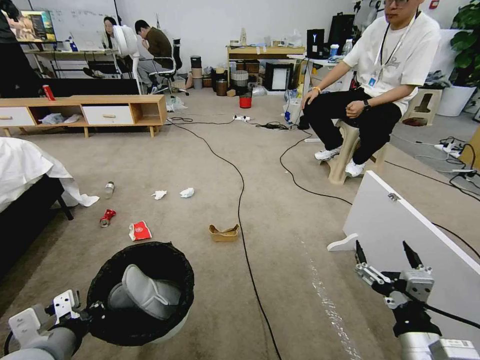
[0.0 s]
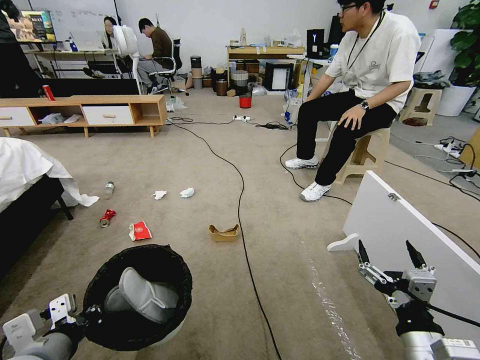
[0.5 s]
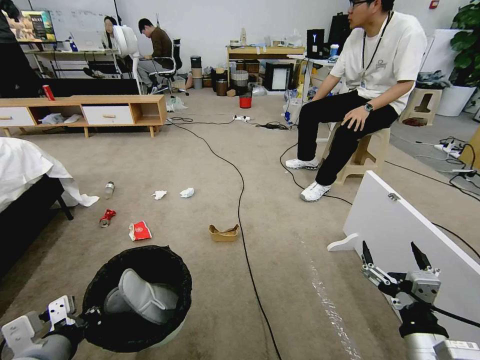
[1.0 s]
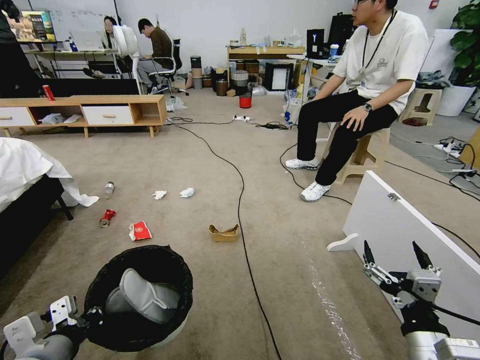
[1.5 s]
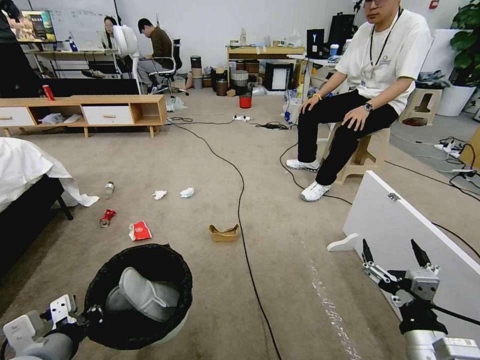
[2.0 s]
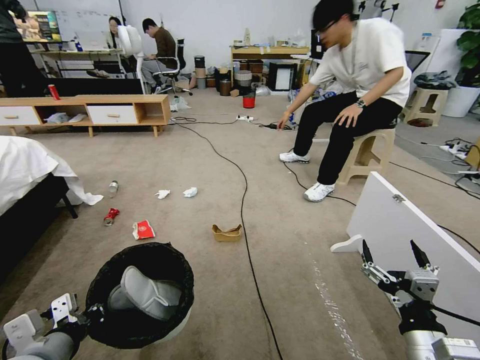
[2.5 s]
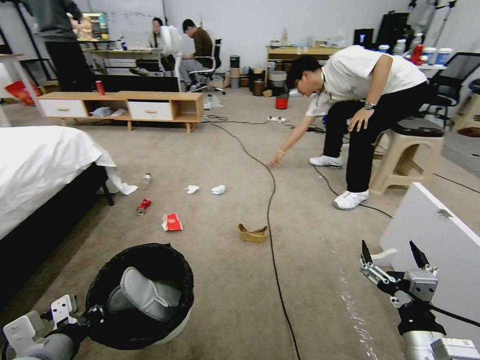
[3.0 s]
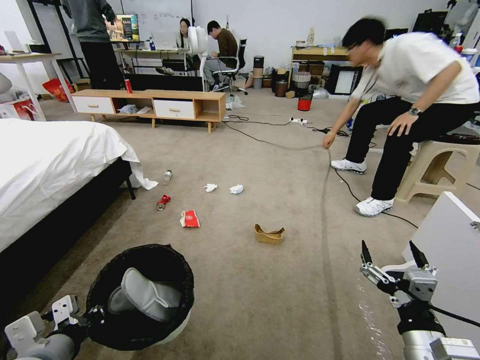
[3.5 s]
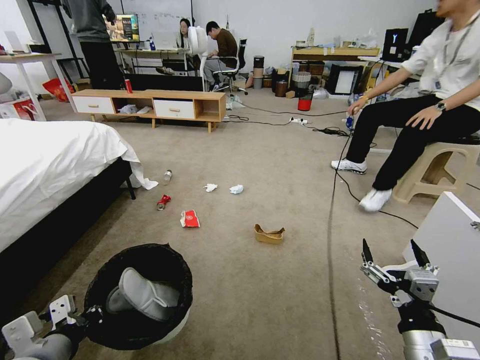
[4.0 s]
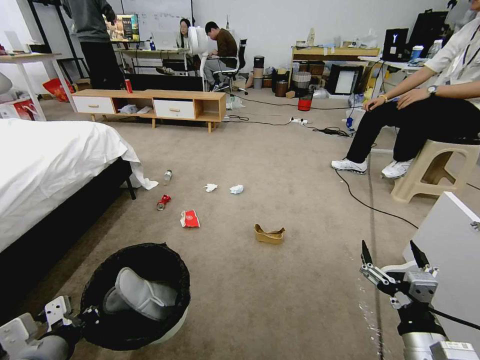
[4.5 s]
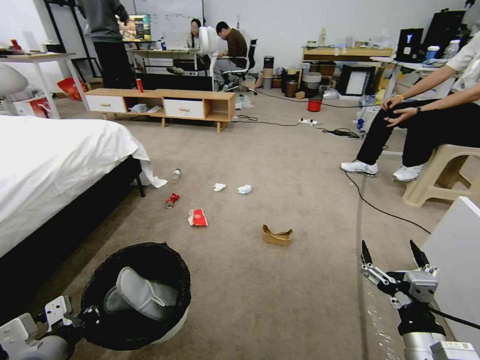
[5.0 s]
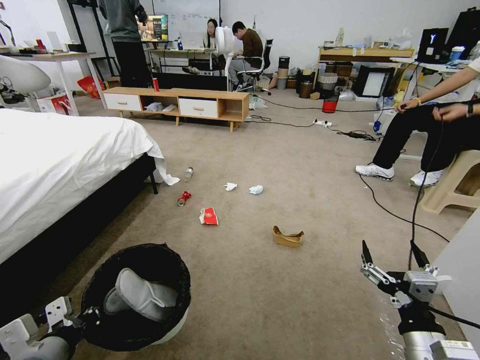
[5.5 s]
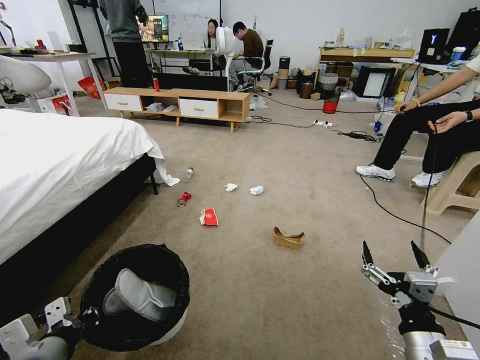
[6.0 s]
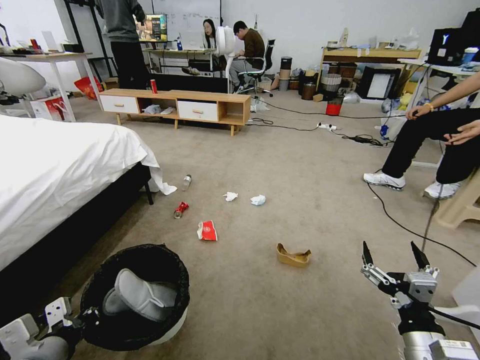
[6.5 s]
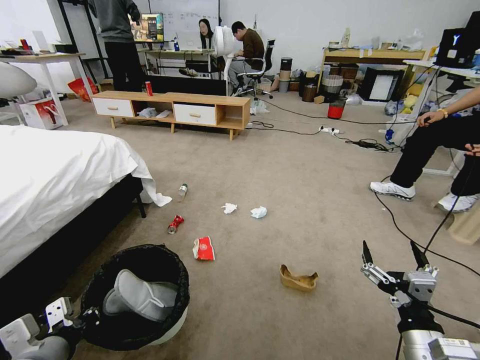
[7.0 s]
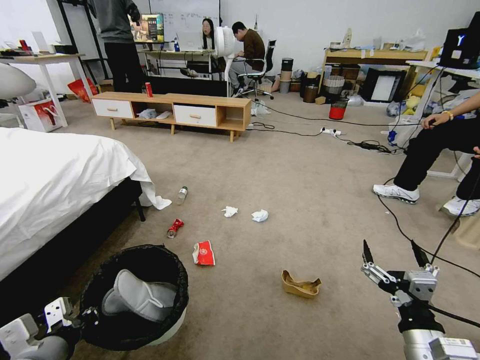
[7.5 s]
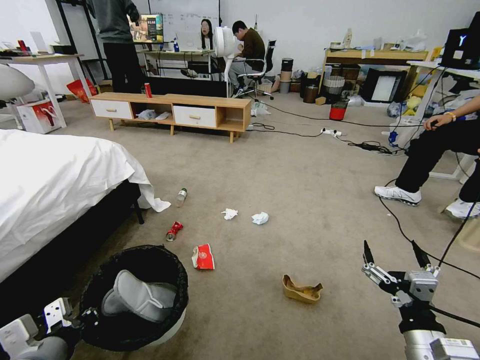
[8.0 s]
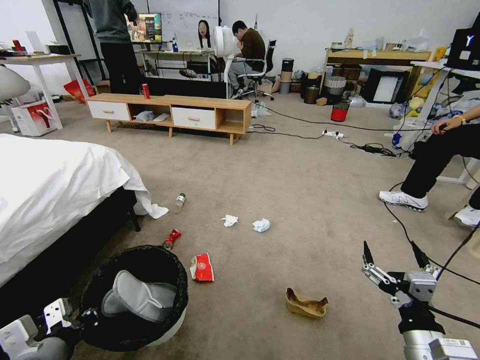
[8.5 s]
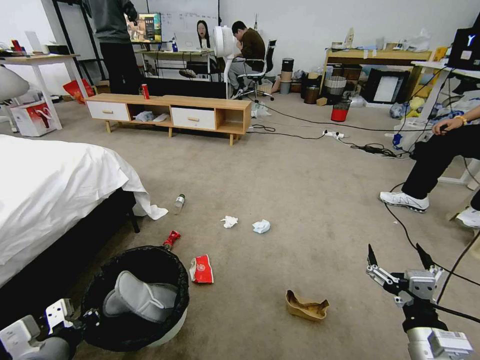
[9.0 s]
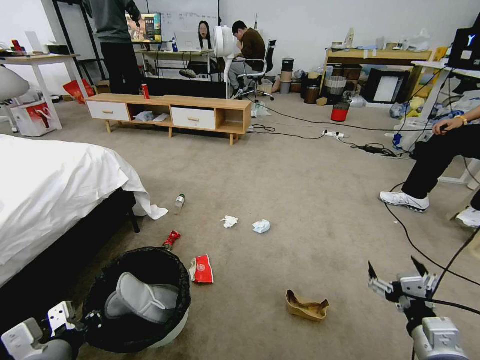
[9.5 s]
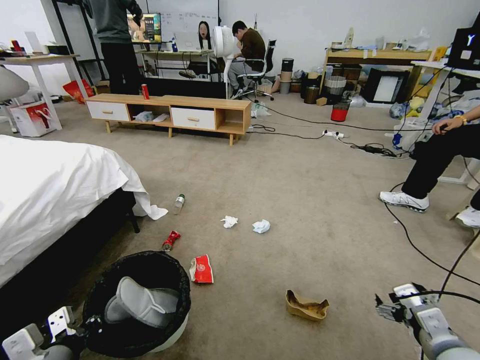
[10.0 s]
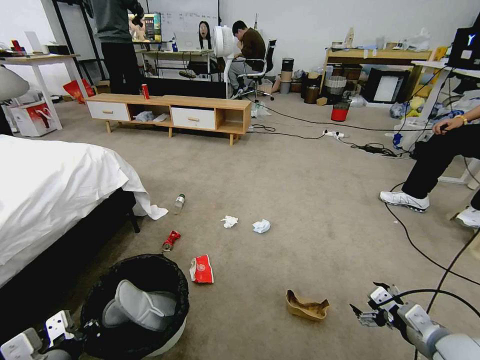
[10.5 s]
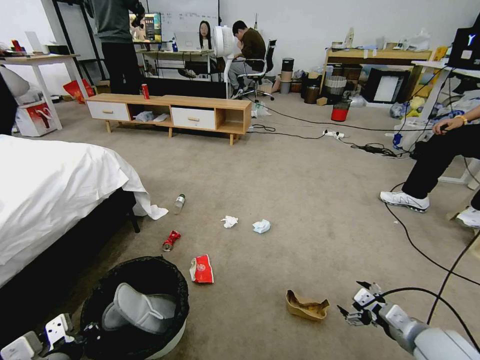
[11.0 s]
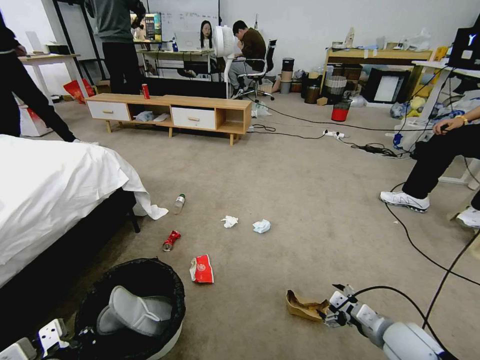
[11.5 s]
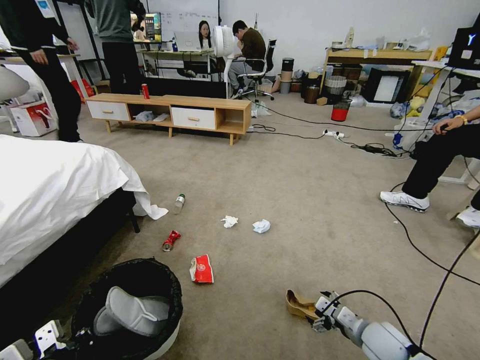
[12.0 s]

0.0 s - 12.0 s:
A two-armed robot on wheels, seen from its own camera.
Task of the whole recording: Pick up the trash bin, then pick up the garbage from the floor and place it into the trash bin.
8.0 s - 10.0 s: The right gripper heads to the right, covering about 5 cm.
10.0 s - 12.0 s: The right gripper heads downward and forward, covering some 20 cm.

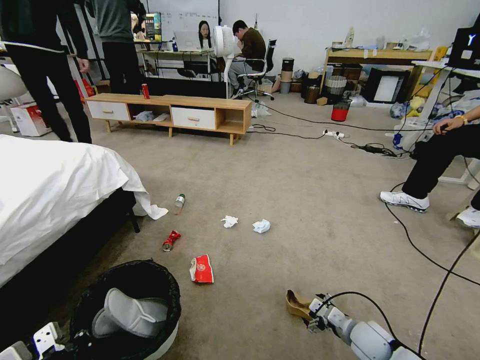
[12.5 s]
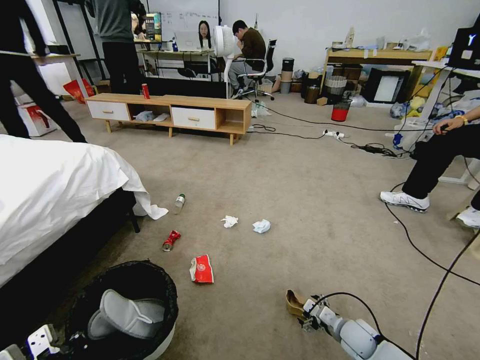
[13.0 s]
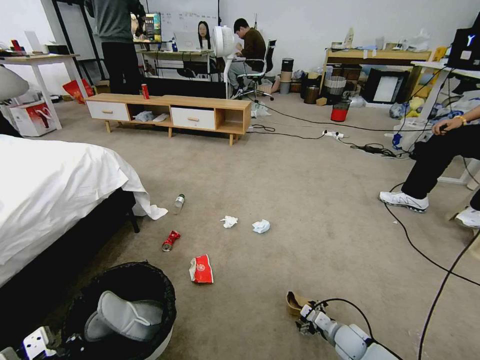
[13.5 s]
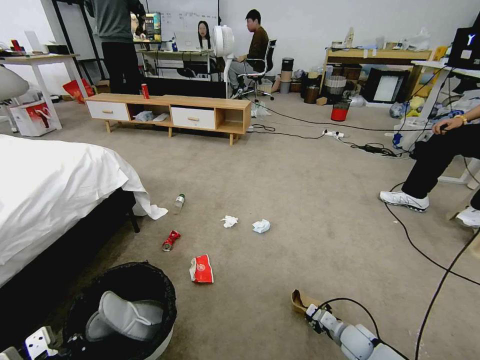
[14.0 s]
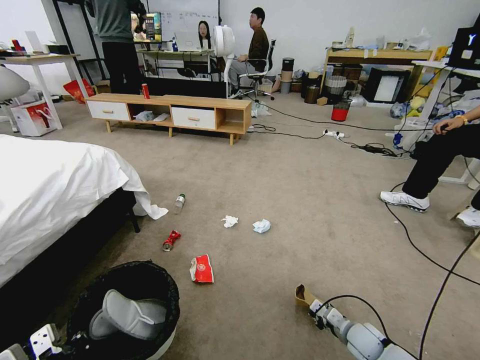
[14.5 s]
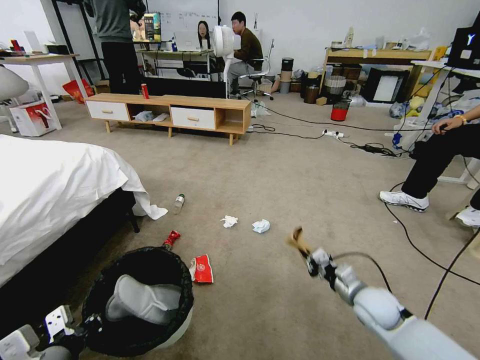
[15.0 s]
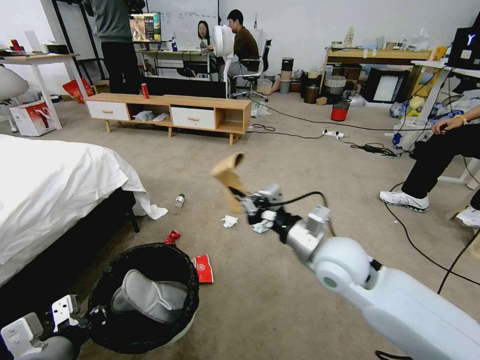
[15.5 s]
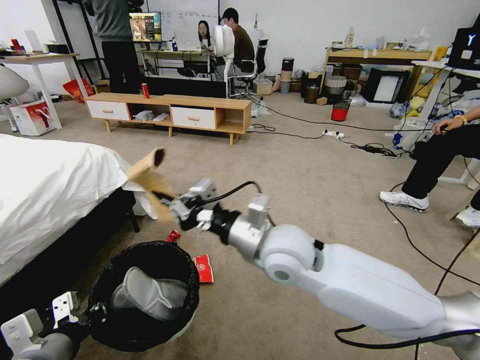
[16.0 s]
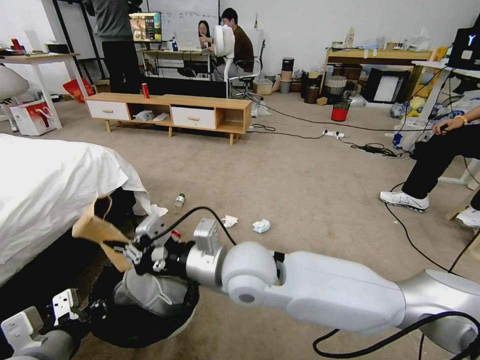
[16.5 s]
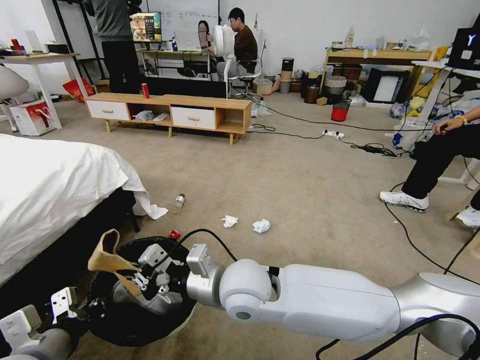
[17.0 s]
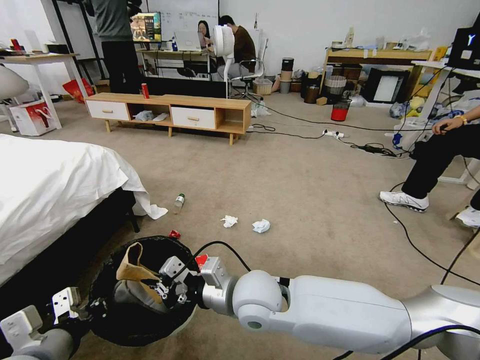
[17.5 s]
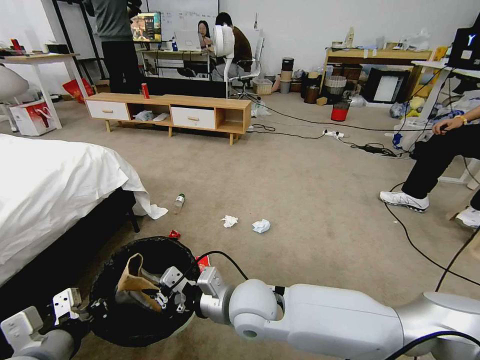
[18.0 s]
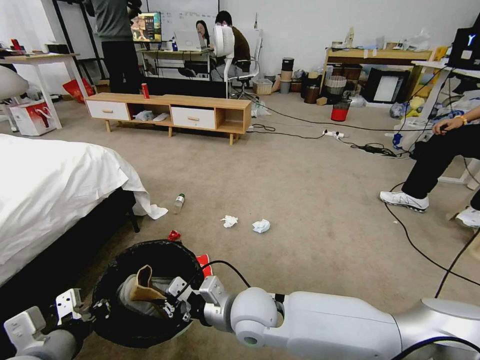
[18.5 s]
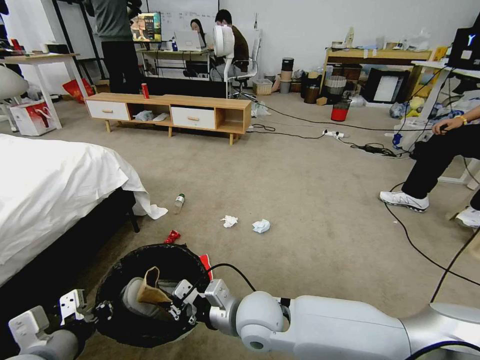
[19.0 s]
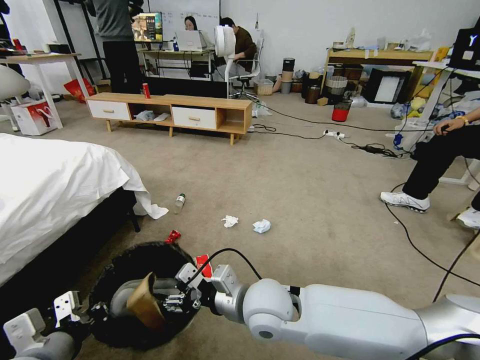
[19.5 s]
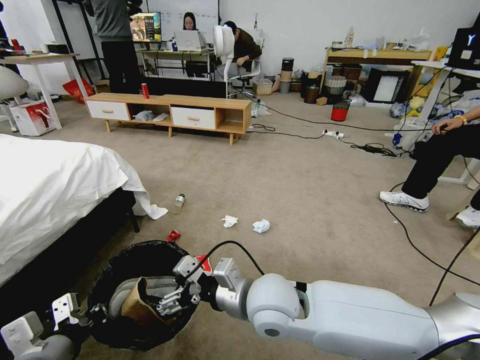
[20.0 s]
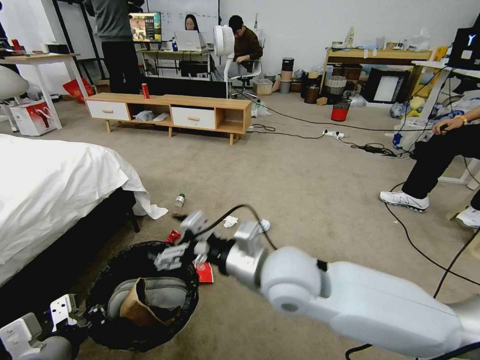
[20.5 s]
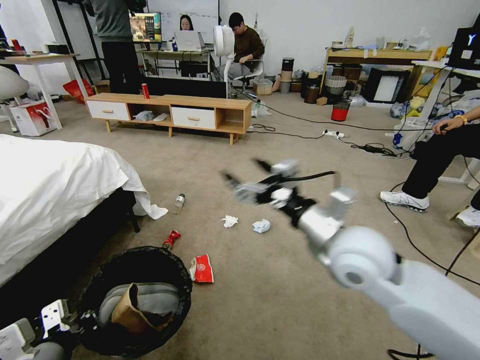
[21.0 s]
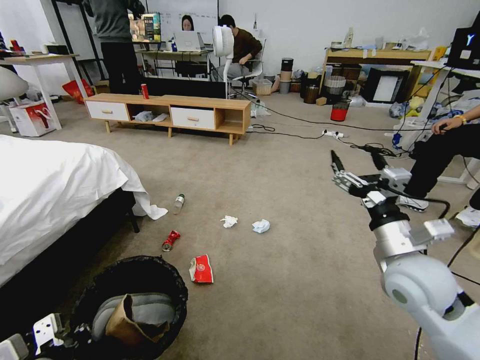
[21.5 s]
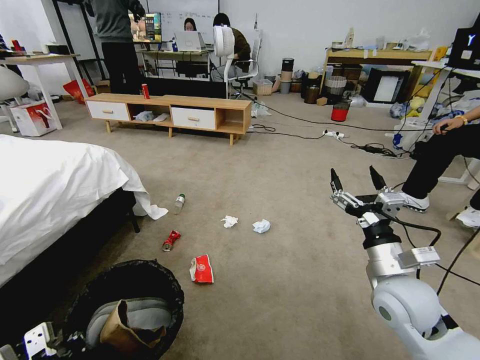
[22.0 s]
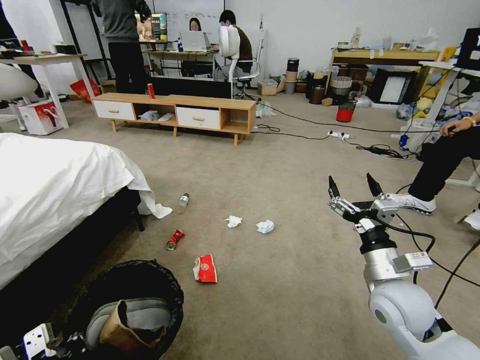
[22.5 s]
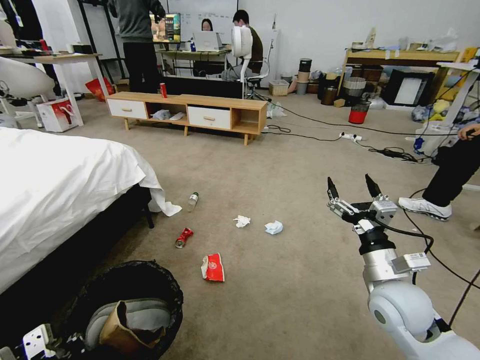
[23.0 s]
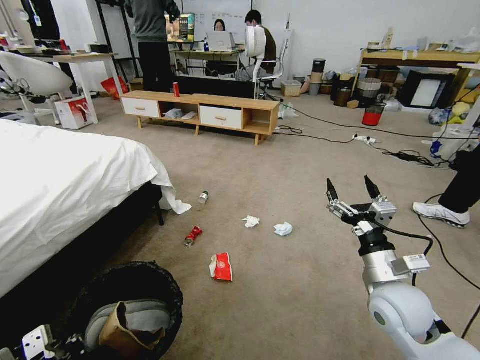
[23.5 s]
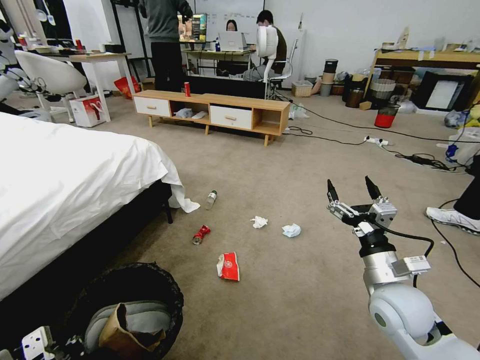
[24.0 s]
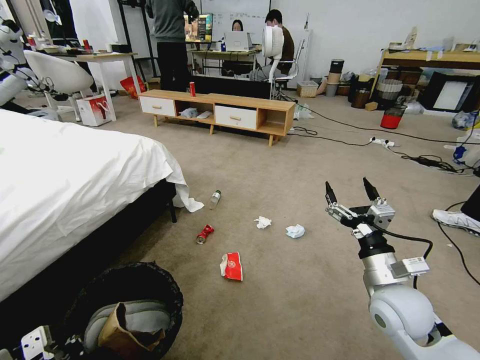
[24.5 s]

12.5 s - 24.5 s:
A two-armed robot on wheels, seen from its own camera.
Task of the whole recording: Pick up the trash bin, then pick up the garbage from the floor and place it into the trash bin.
12.5 s - 14.5 s: The right gripper closes up.
14.5 s - 16.5 s: The right gripper shifts about 50 cm upward and to the left. Meanwhile the left gripper moves approximately 5 cm.
16.5 s - 18.5 s: The right gripper moves downward, some 15 cm.
18.5 s - 20.5 s: The left gripper closes its fingers. The right gripper heads upward, covering about 10 cm, and opens.
20.5 s - 22.5 s: The right gripper goes about 25 cm to the right.

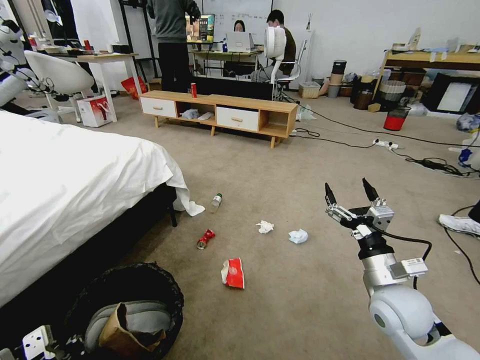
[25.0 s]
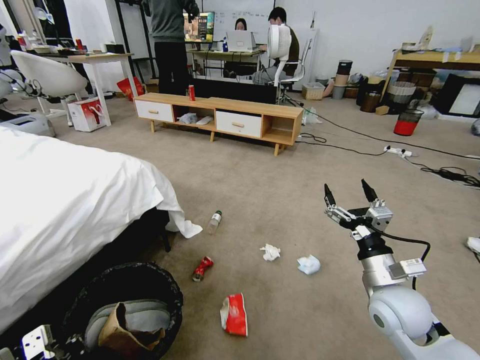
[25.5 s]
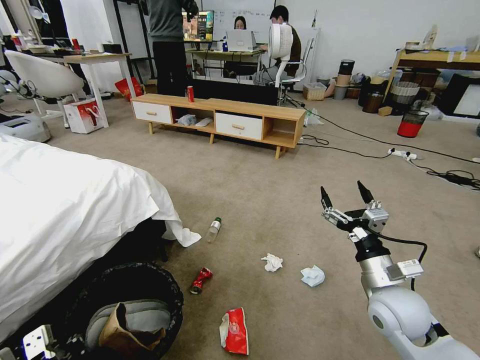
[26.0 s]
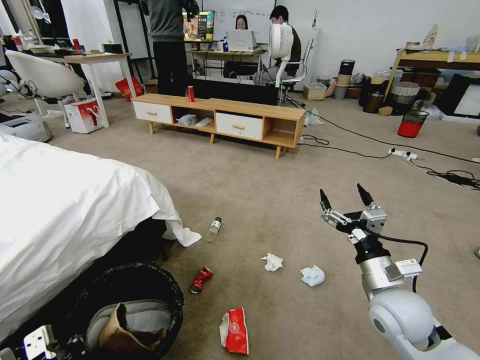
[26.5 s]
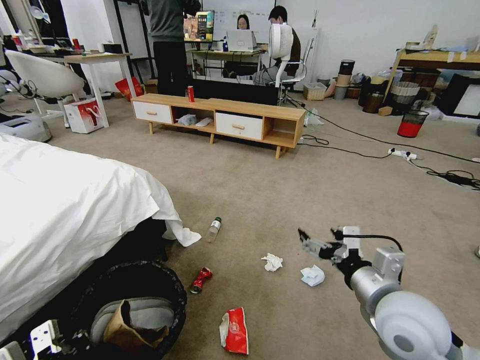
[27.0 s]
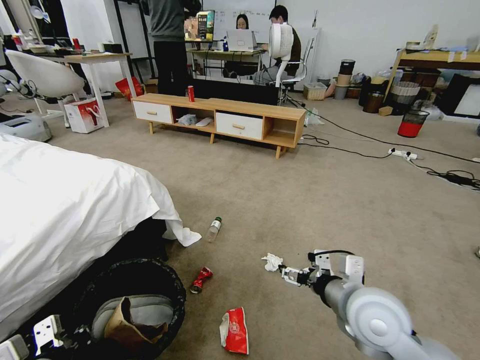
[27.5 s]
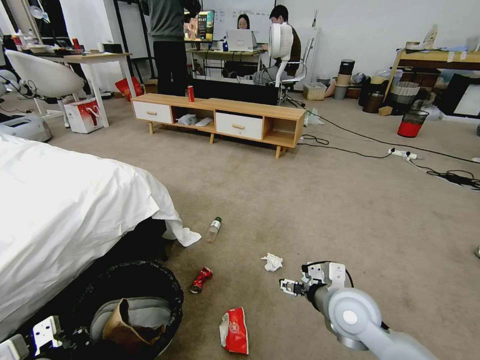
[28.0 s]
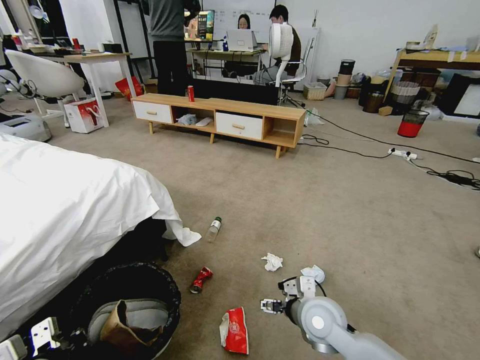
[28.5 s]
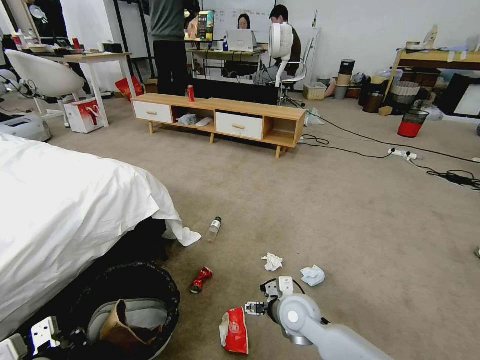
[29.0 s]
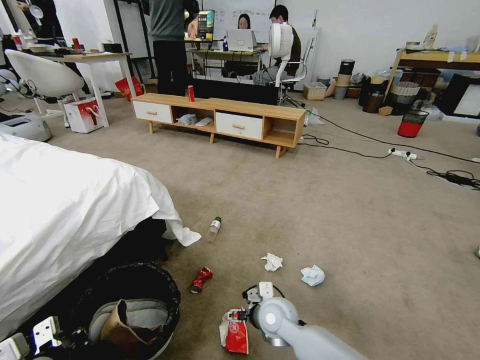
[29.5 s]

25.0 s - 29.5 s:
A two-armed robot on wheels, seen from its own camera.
Task of the whole recording: Pick up the trash bin, then pick up the garbage from the floor and place it into the trash bin.
25.0 s - 27.0 s: The right gripper moves upward and backward, approximately 10 cm.
27.0 s - 29.5 s: The right gripper is displaced downward, to the left and forward by about 30 cm.
